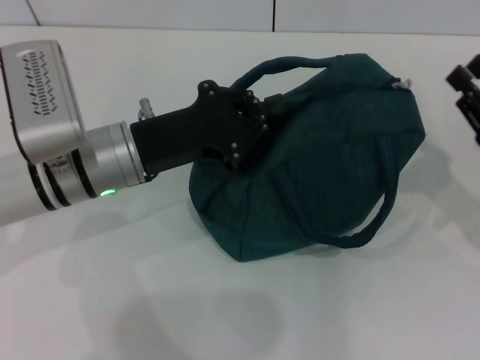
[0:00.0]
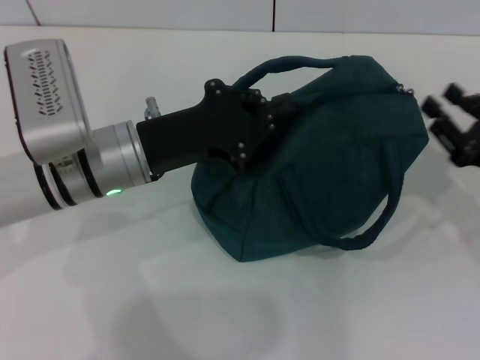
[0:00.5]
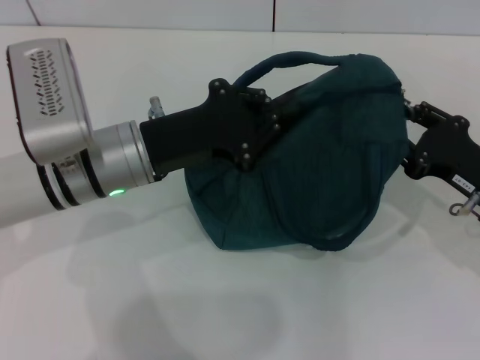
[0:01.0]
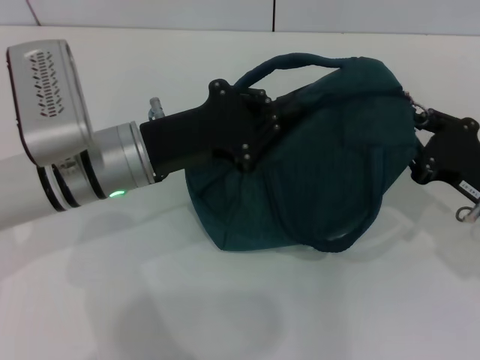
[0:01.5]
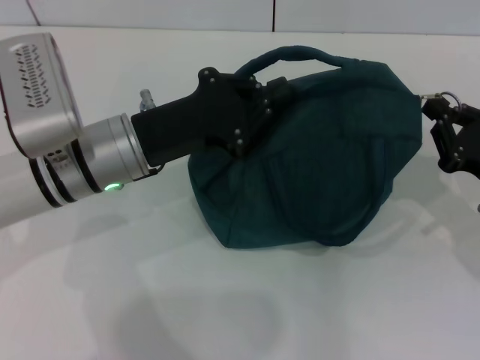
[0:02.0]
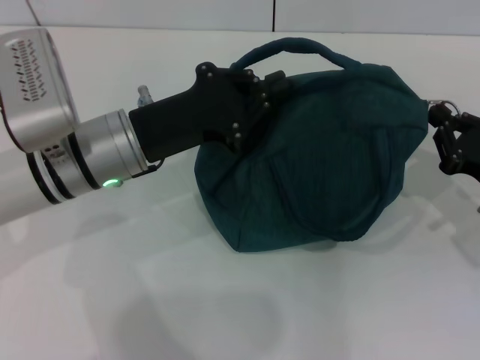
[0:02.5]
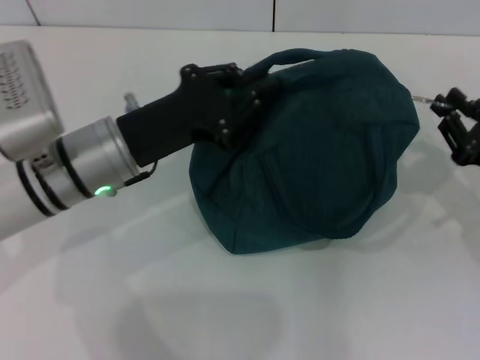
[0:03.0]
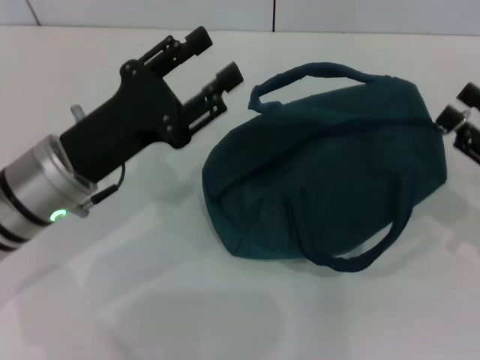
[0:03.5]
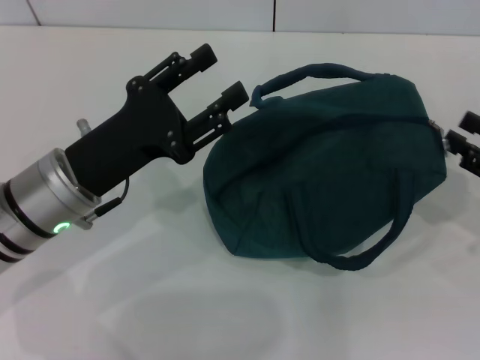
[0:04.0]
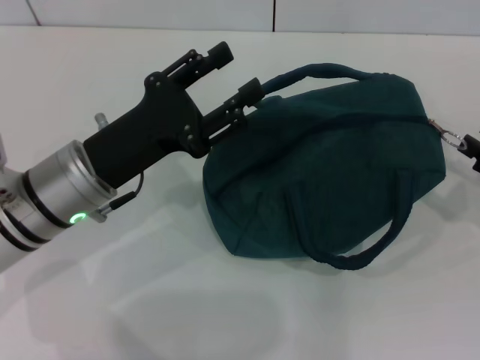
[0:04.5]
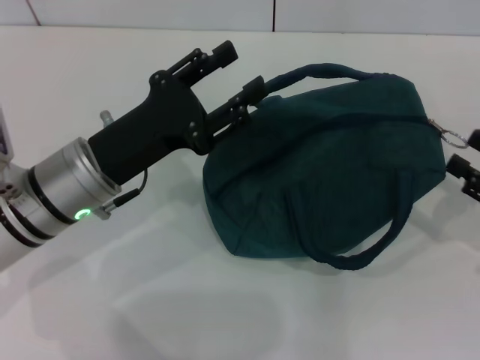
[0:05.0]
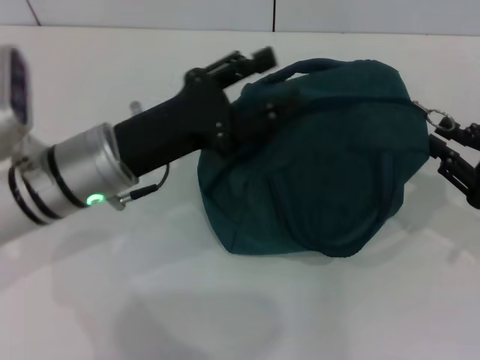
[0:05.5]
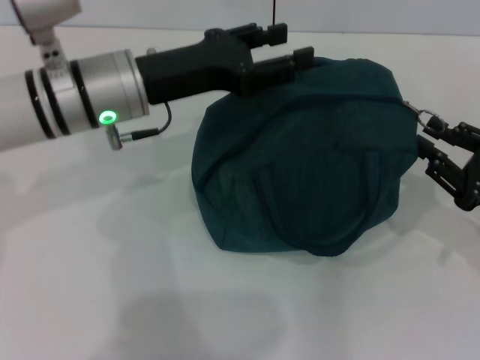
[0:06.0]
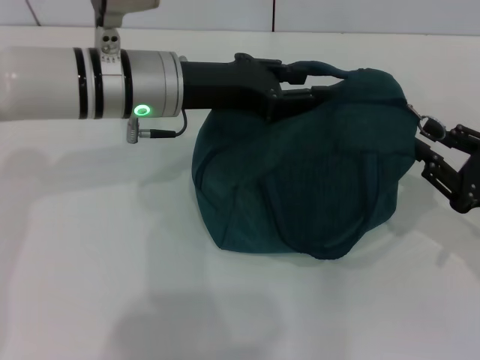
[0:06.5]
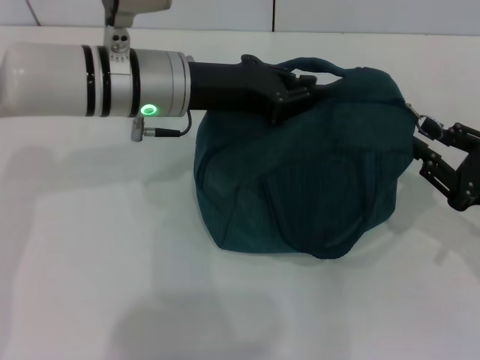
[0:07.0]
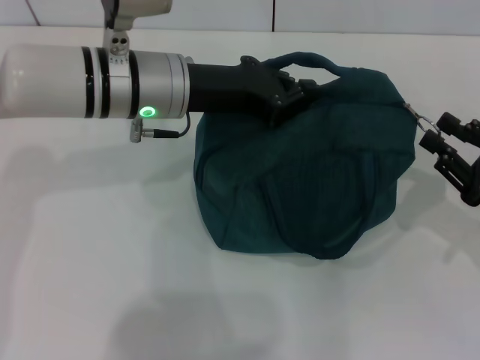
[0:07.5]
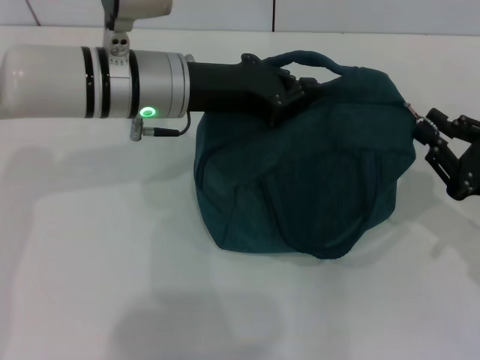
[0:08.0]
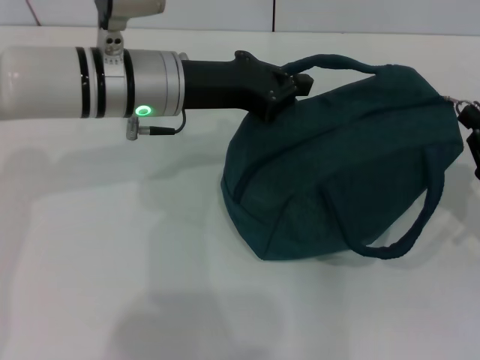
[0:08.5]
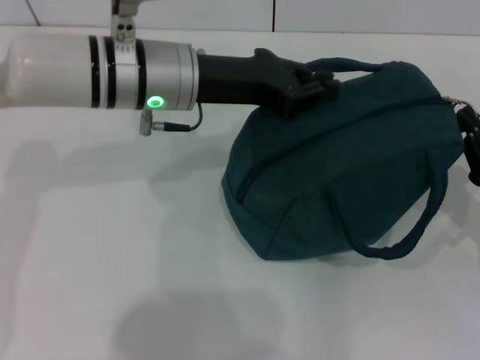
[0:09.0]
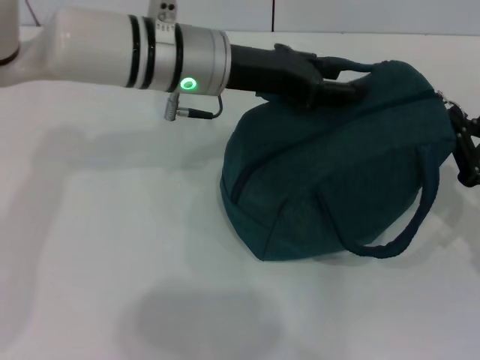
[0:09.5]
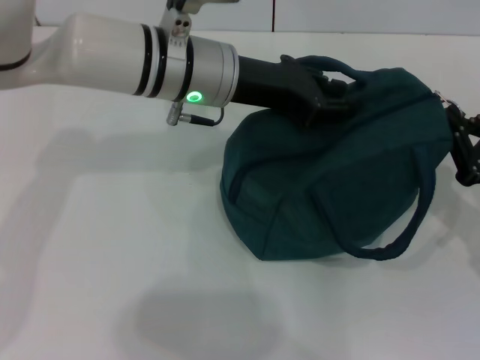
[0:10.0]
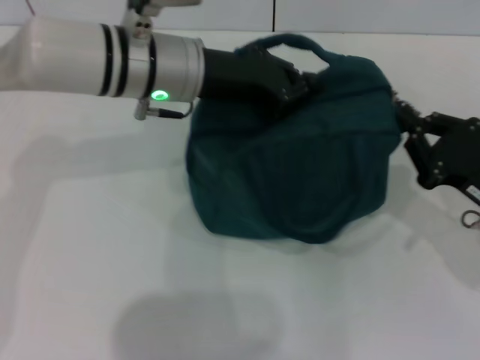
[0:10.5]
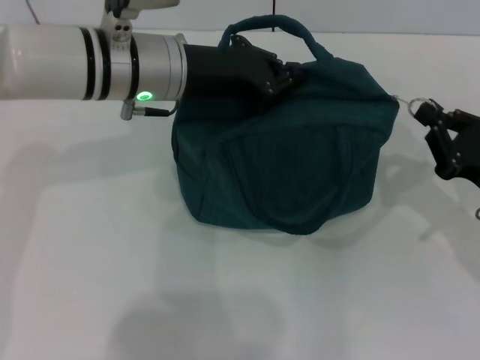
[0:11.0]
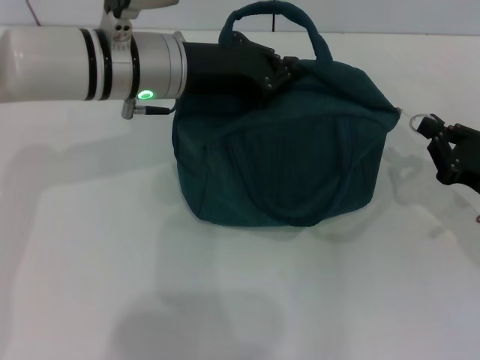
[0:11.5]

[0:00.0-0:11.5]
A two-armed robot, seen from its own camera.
Step, 0:00.0 to 0:03.0: Hold the lunch bag with your left hand.
Step, 0:03.5 to 0:04.5: Zip up the lunch bag with your right hand.
0:00.0 to 0:02.0: The grippers stay close to where they were, moving slightly.
0:02.0 to 0:04.0: The right gripper heads to the right, covering about 5 cm, and opens its fingers, while the left gripper moves some 5 cm, and opens.
0:04.0 to 0:06.0: The left gripper travels forward and upward by roughly 10 cm.
0:06.0 to 0:07.5: The left gripper closes up.
0:07.5 to 0:09.5: The right gripper closes its fingers; the left gripper opens.

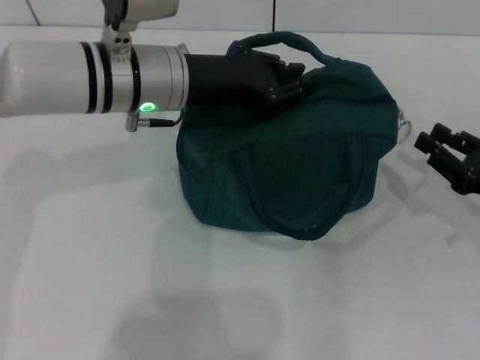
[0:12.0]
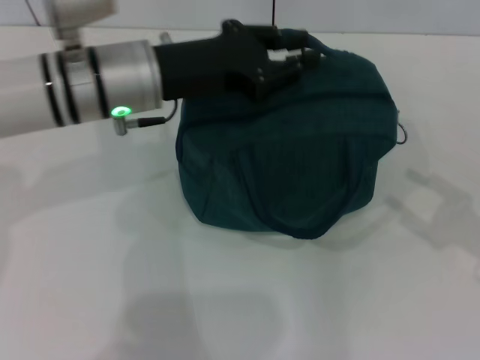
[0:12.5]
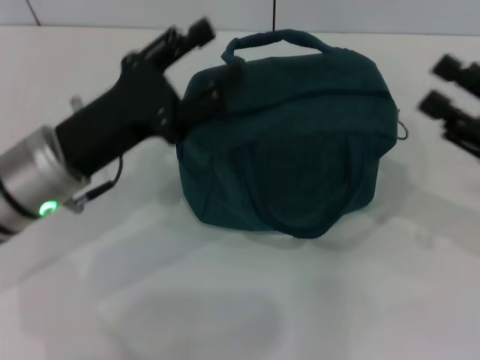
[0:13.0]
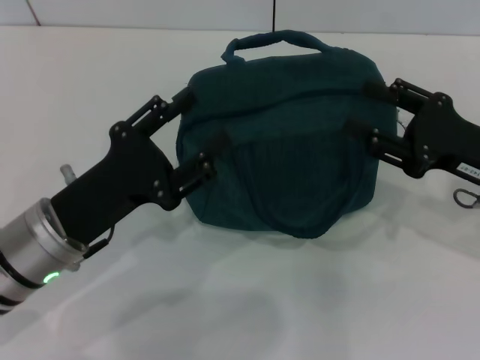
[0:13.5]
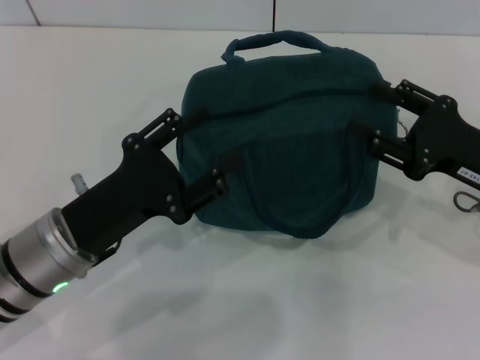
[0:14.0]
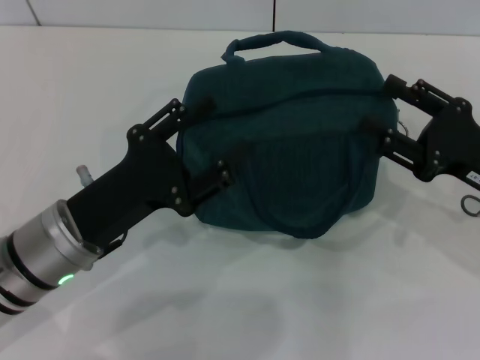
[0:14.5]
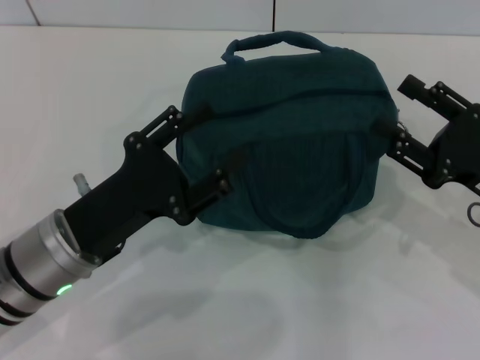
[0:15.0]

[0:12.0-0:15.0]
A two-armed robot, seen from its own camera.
0:12.0 to 0:13.5: The right gripper travels to the left and upward by approximately 10 cm, and opens its fingers. The left gripper goes roughly 20 cm backward, downward and to the left, and opens.
0:13.5 to 0:15.0: The grippers stay close to where they were, moving slightly.
